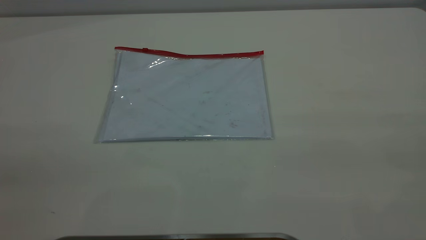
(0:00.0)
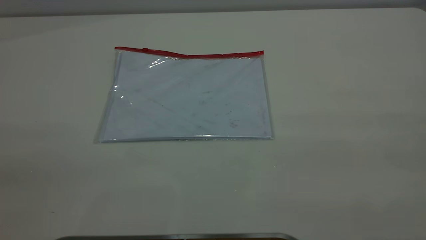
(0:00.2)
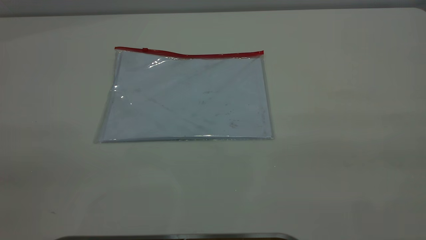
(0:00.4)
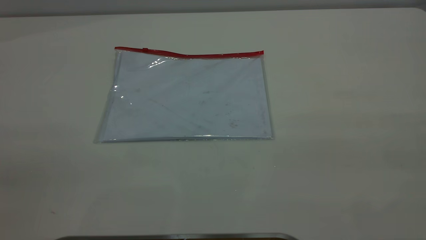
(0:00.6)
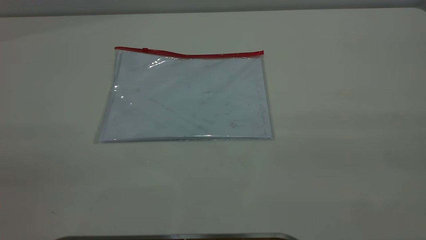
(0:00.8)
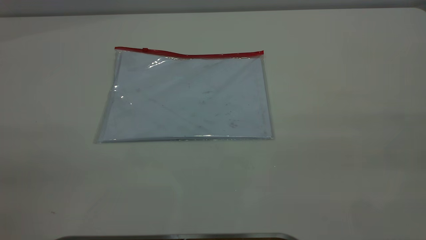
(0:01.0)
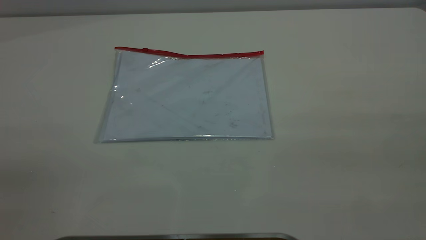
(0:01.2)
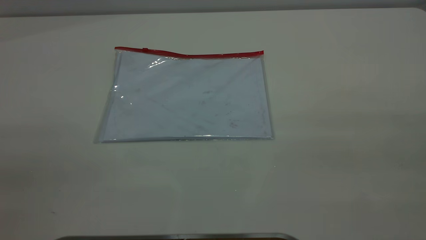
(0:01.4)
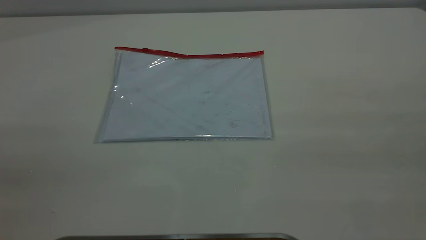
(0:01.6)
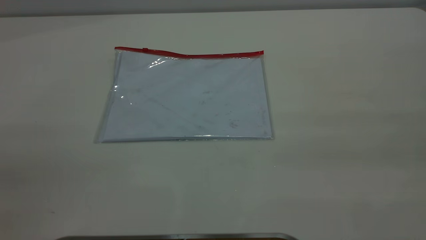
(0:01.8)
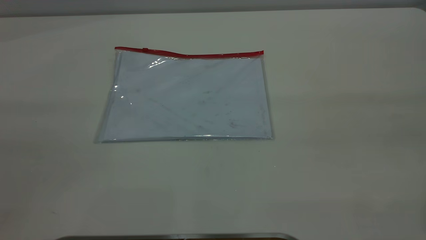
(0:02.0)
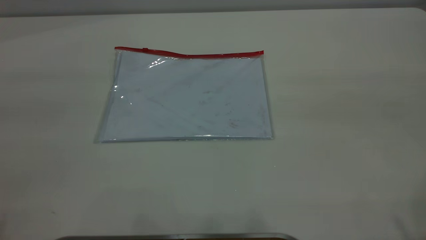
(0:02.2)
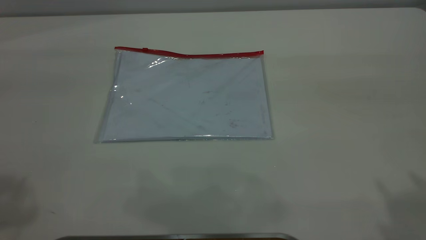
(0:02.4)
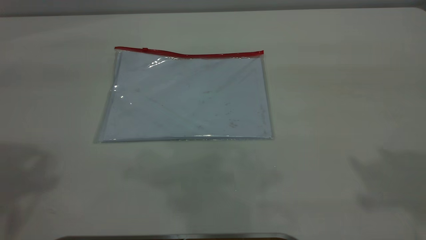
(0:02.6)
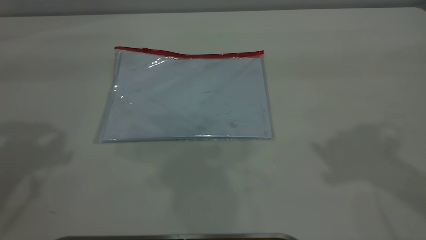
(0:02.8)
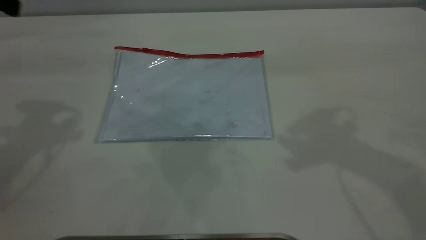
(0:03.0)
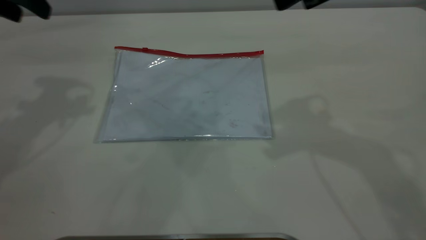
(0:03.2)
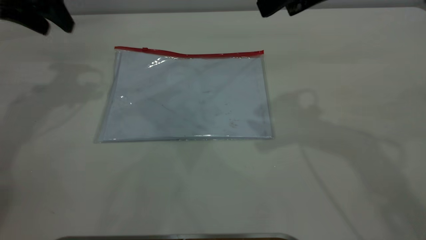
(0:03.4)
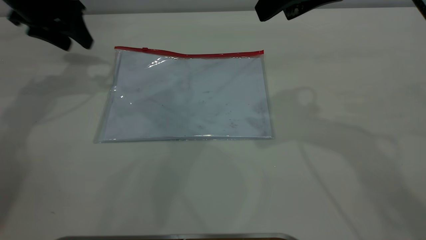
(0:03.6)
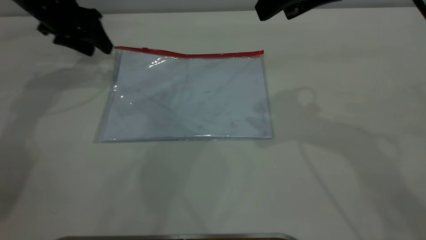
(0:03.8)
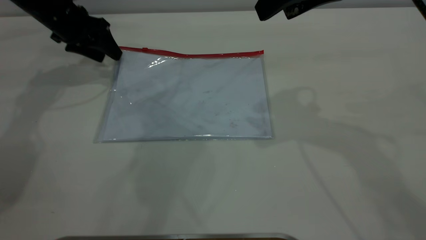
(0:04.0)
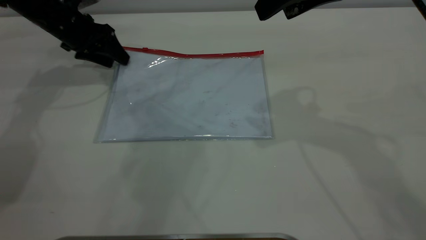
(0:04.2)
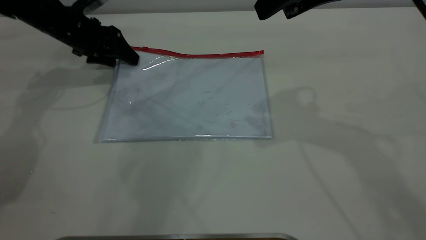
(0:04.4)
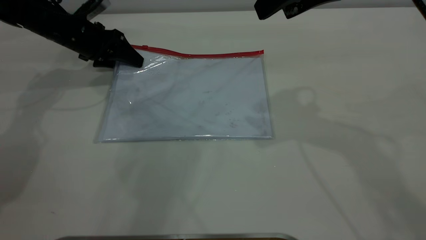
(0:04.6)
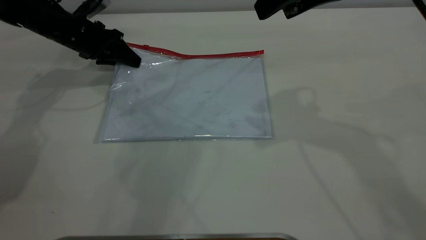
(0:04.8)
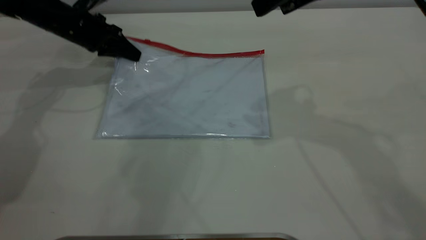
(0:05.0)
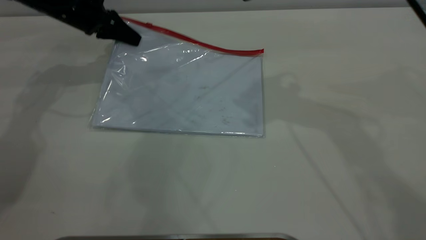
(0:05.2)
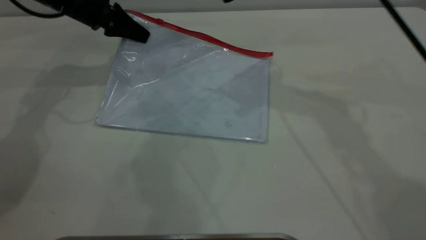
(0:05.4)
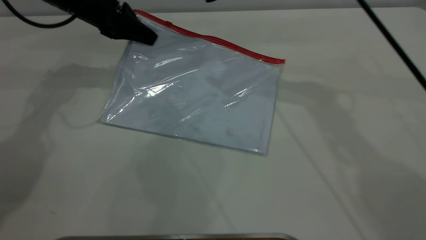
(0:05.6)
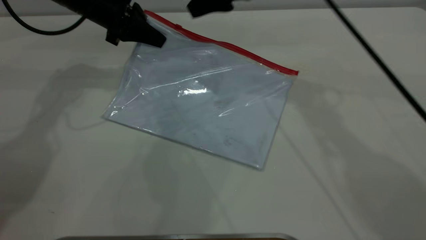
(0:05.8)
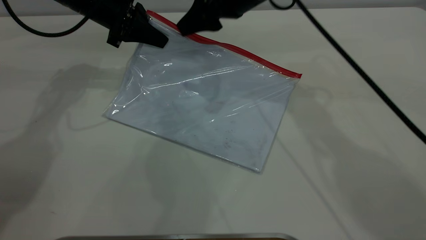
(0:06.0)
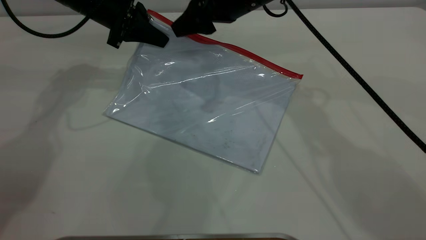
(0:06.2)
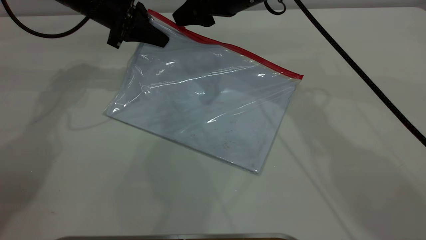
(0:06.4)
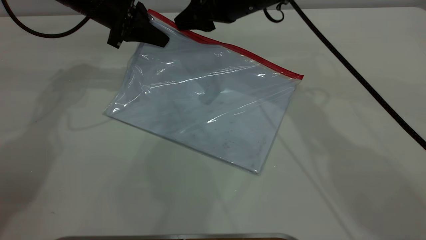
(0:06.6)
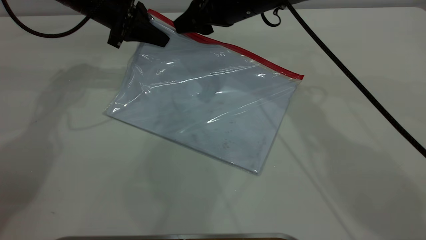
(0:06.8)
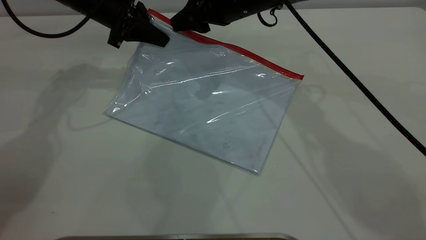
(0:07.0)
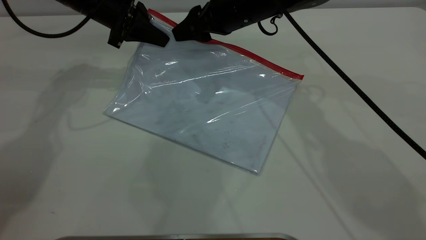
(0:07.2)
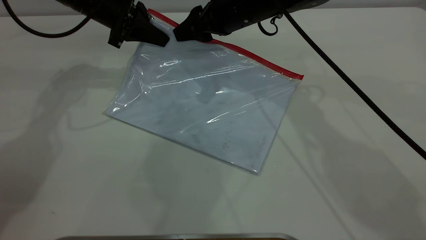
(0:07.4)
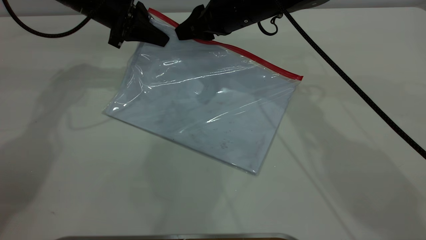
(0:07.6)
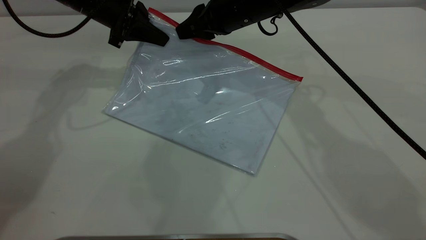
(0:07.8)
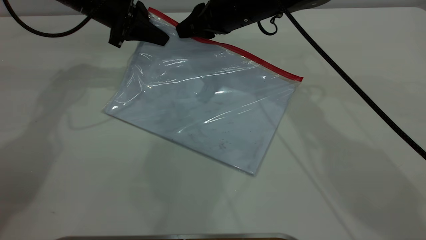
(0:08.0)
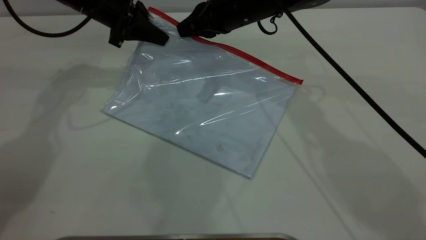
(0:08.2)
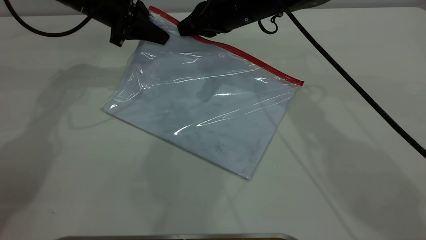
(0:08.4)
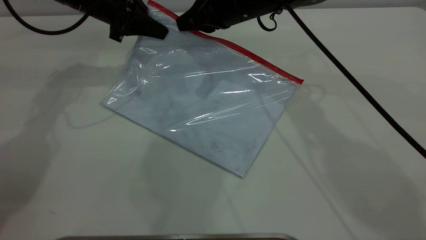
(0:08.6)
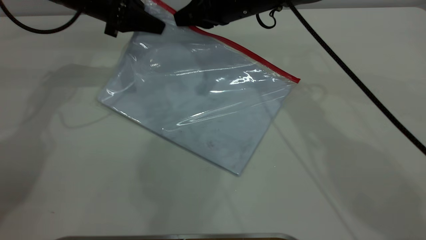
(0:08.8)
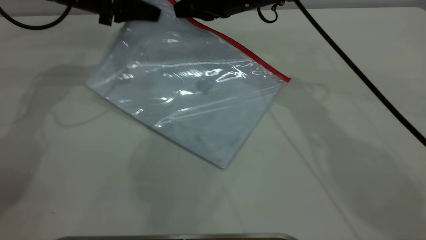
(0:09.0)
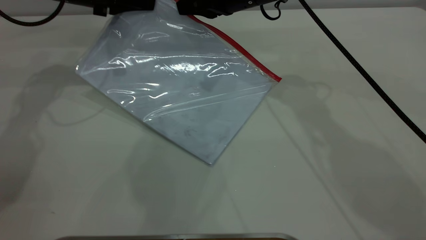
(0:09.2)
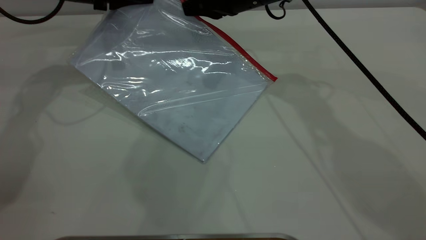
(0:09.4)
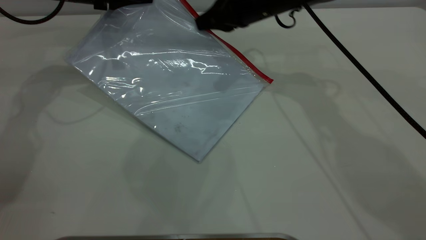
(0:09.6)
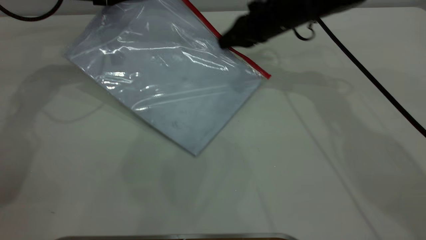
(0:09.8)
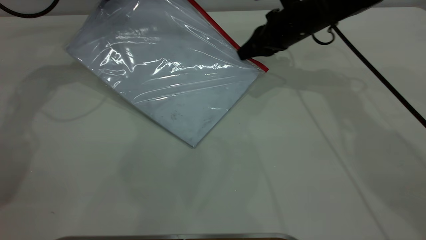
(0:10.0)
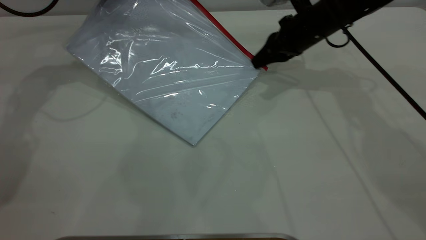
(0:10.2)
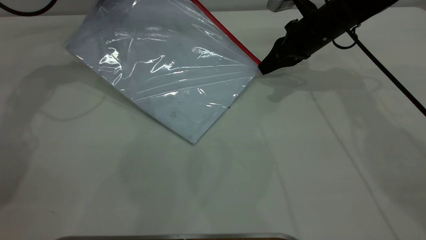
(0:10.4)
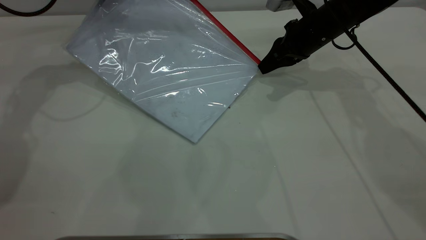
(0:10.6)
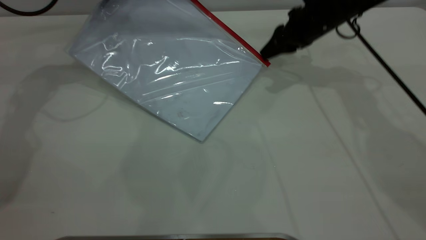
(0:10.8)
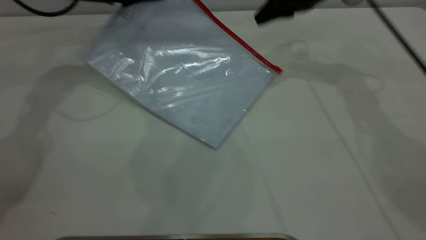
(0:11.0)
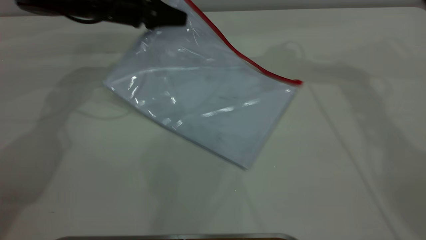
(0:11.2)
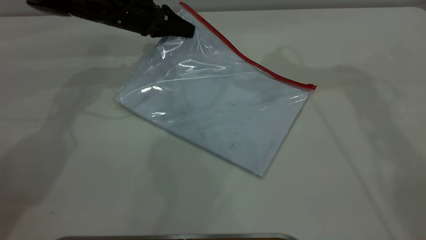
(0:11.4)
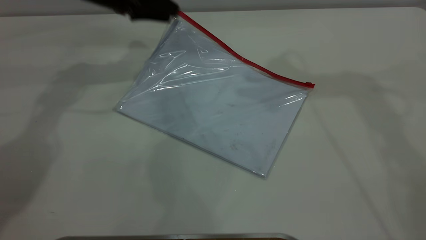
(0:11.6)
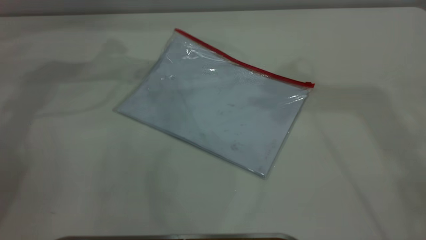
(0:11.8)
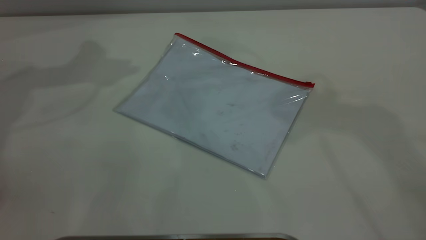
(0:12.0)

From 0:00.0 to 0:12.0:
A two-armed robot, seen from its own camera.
Step, from 0:00.0 to 0:05.0: Pick up the transparent plastic bag with the left gripper.
Step, from 0:05.4 to 0:10.8: Pulling up the zipper on the transparent plastic bag with the right gripper to close it.
Step, from 0:11.0 to 0:11.6: Place the transparent plastic bag.
From 0:03.0 to 0:04.4: The right gripper moves approximately 5 cm. The left gripper is displaced downward and forward by about 25 cm.
From 0:04.4 to 0:06.0: The right gripper heads forward, downward and to the left, covering approximately 15 cm, while the left gripper moves to the right and upward, roughly 10 cm, and closes its fingers.
From 0:06.0 to 0:07.6: The right gripper closes its fingers.
From 0:07.6 to 0:09.0: The grippers make only small movements.
From 0:09.0 to 0:10.4: The right gripper is displaced to the right and downward by approximately 15 cm.
From 0:10.4 to 0:12.0: The right gripper is displaced upward by roughly 40 cm, and opens. Meanwhile the left gripper heads upward, covering about 20 cm, and opens up.

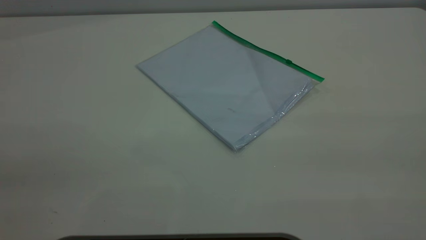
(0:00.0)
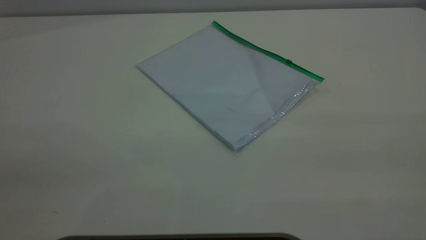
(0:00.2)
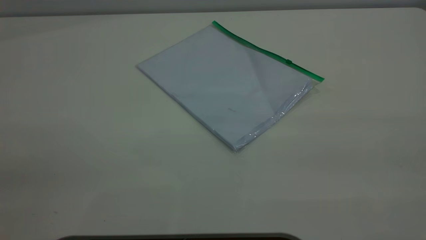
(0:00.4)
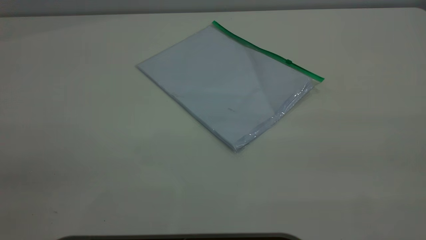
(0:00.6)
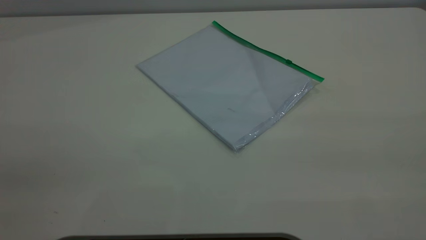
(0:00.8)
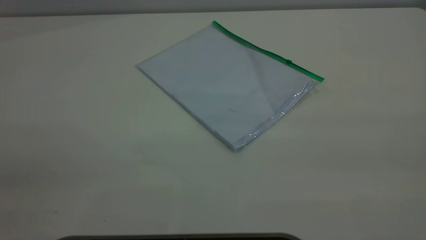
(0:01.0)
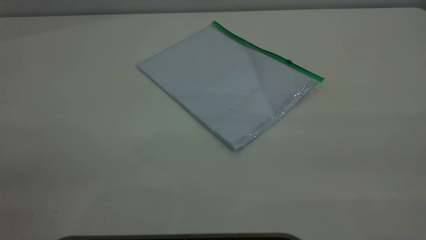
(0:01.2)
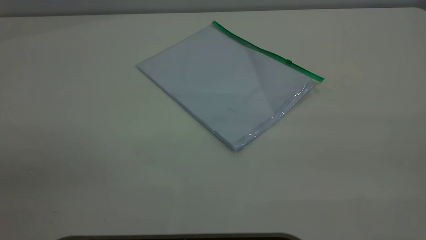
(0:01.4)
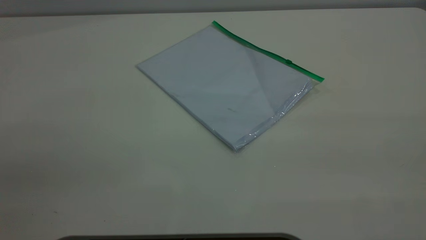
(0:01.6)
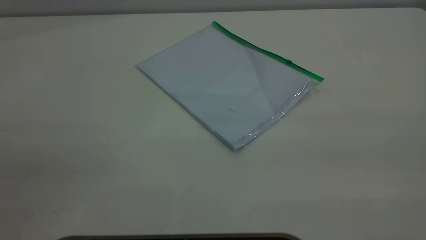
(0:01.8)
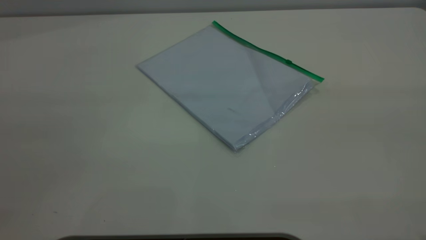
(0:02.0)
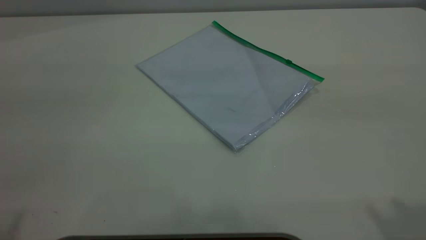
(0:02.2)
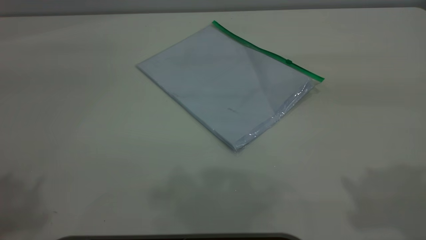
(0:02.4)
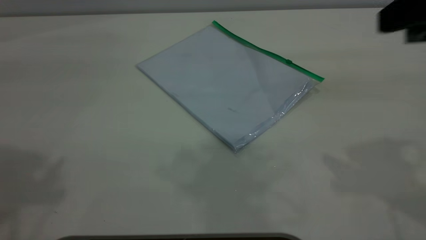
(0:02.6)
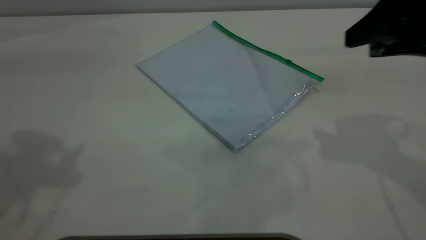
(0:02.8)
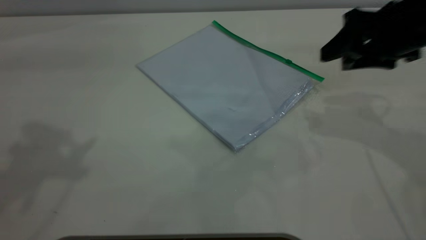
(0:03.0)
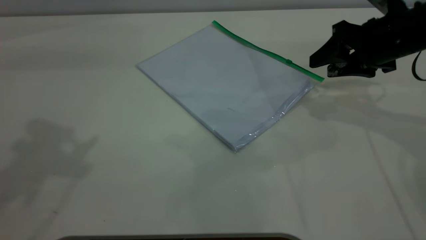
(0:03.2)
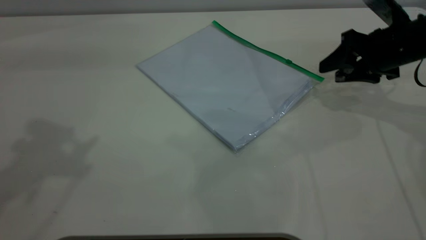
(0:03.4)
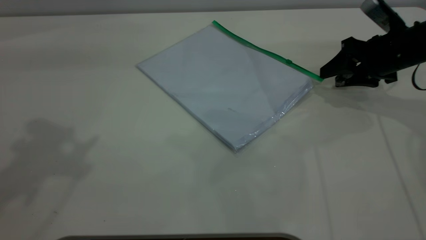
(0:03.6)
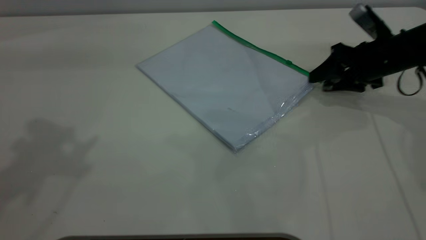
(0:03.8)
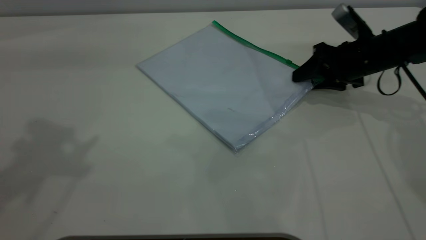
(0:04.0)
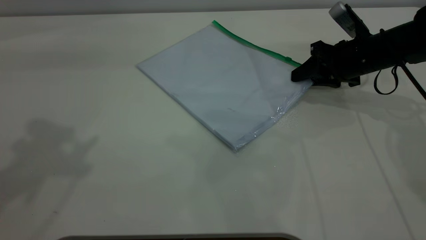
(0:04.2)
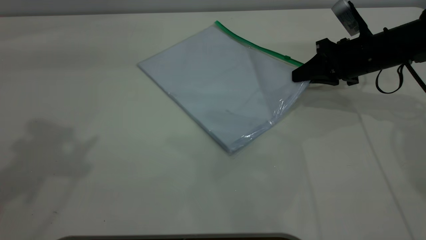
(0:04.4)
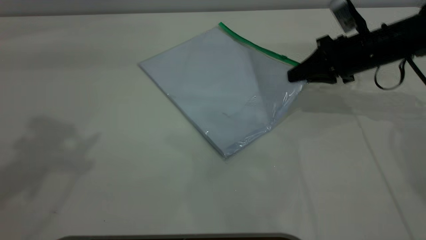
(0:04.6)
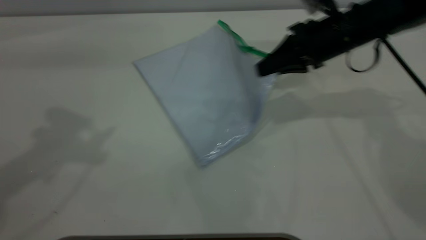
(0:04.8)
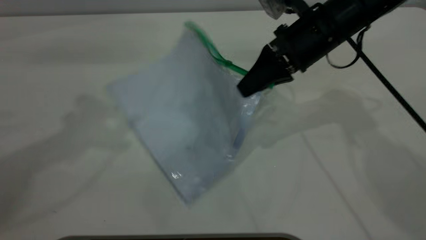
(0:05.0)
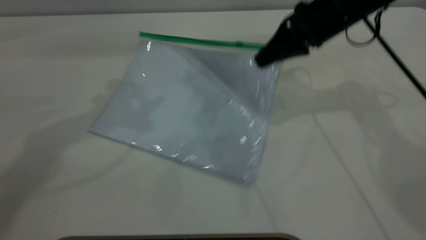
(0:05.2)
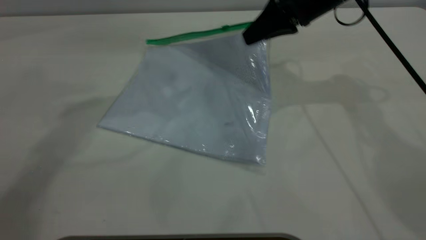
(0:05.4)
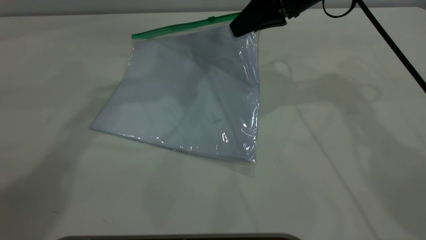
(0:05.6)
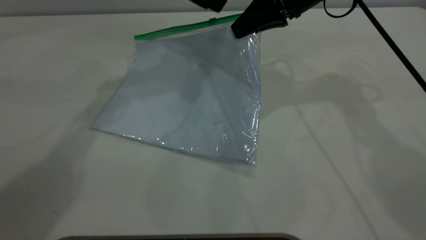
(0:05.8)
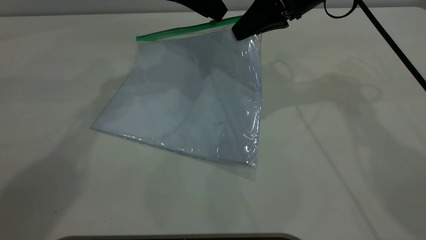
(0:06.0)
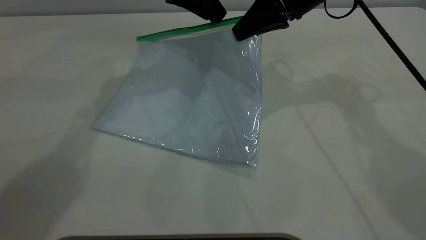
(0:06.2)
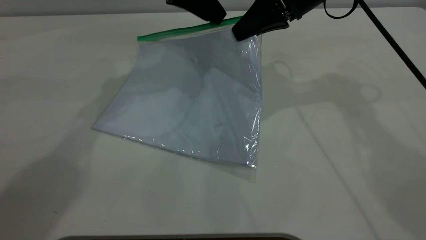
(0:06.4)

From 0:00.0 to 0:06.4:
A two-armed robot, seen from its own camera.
Step, from 0:00.0 to 0:05.4: Pick up the transparent plastic bag with the right gripper.
From 0:01.6 to 0:03.2: The right gripper moves forward and downward, approximately 50 cm.
From 0:03.2 to 0:04.8: The left gripper ends up approximately 5 cm from where it was; the right gripper moves to the left, about 10 cm, and closes up.
From 0:04.8 to 0:06.4: The left gripper is displaced forward, to the right and downward by roughly 25 cm, while the right gripper heads upward, covering roughly 5 cm.
